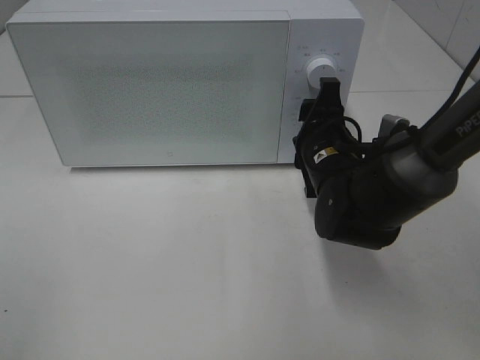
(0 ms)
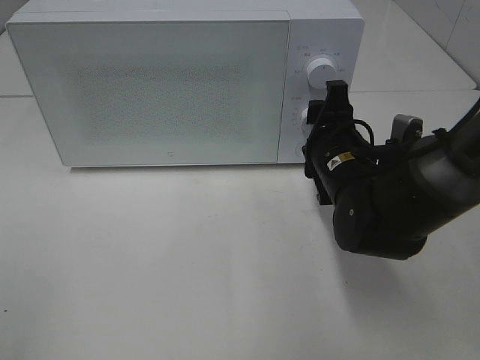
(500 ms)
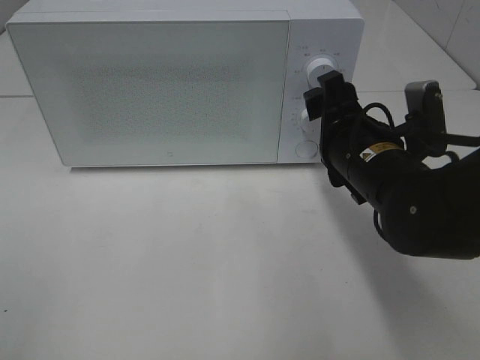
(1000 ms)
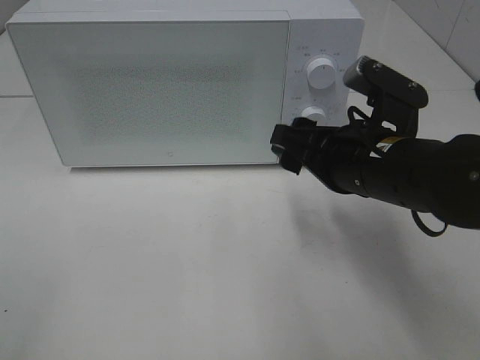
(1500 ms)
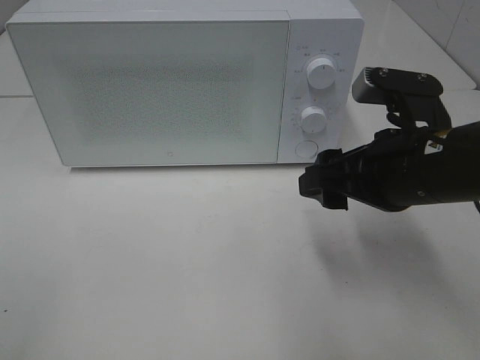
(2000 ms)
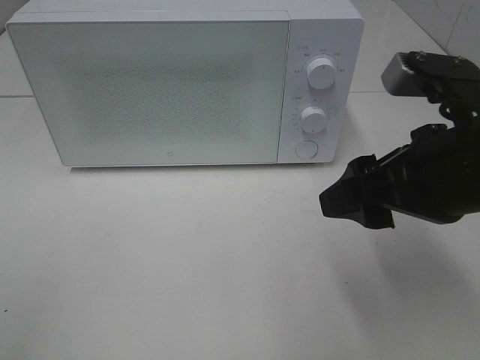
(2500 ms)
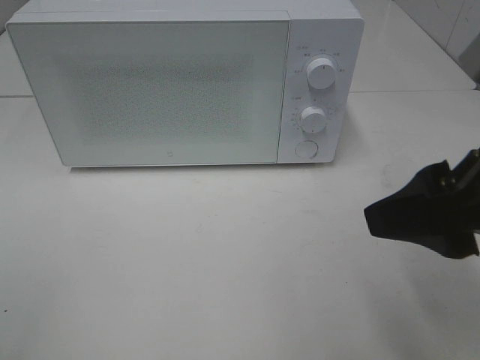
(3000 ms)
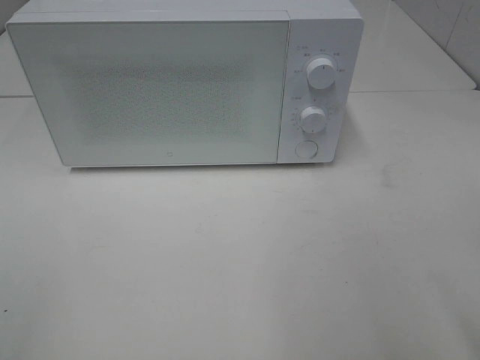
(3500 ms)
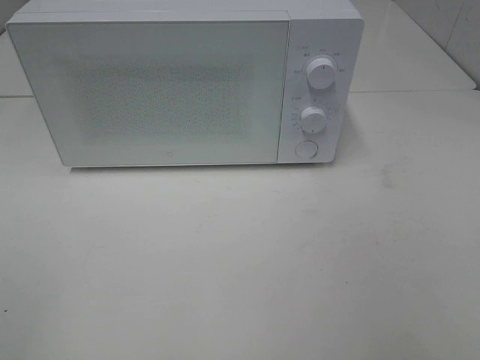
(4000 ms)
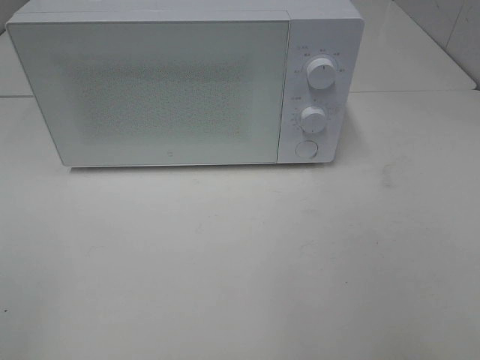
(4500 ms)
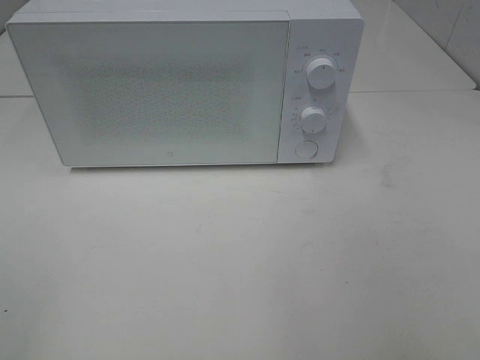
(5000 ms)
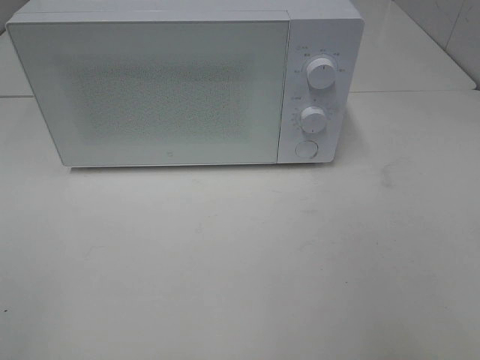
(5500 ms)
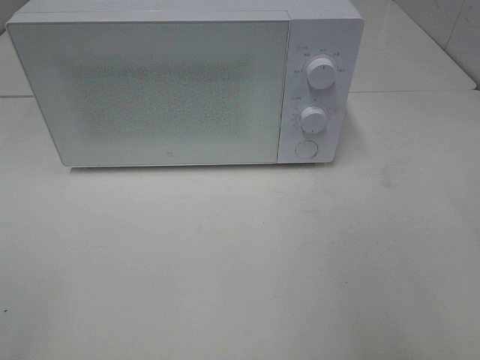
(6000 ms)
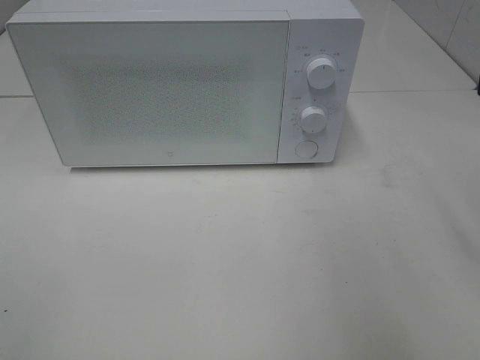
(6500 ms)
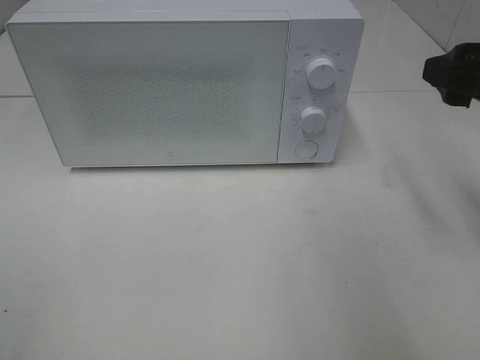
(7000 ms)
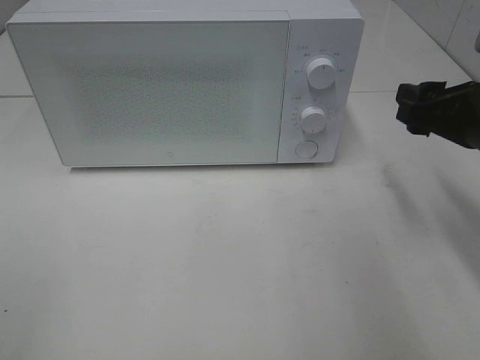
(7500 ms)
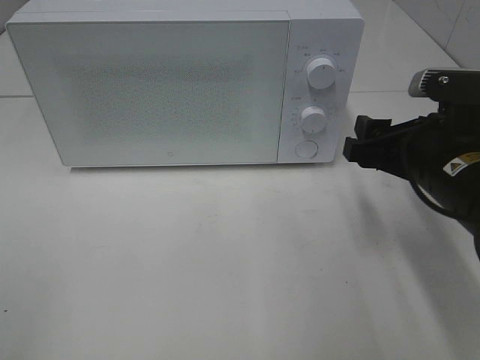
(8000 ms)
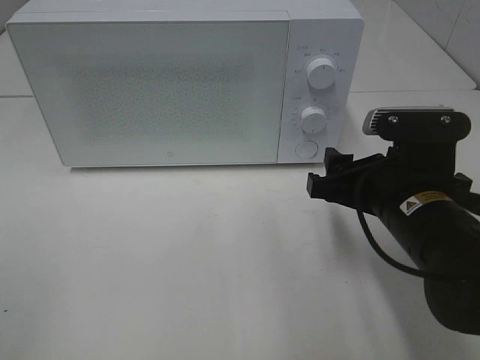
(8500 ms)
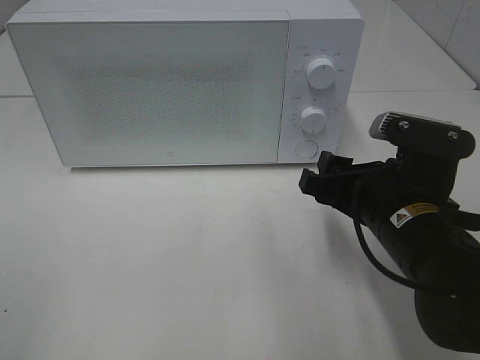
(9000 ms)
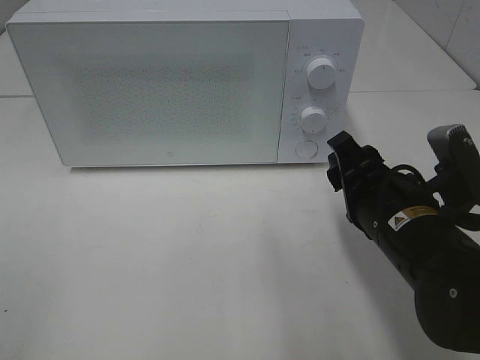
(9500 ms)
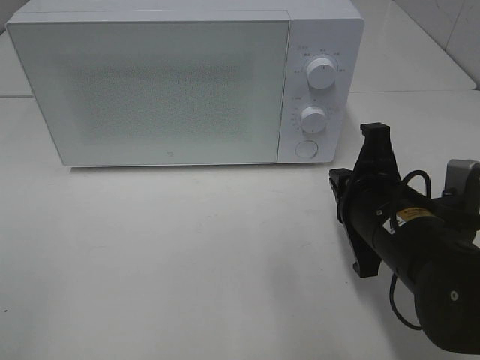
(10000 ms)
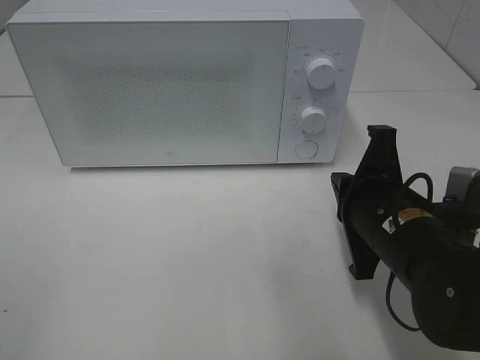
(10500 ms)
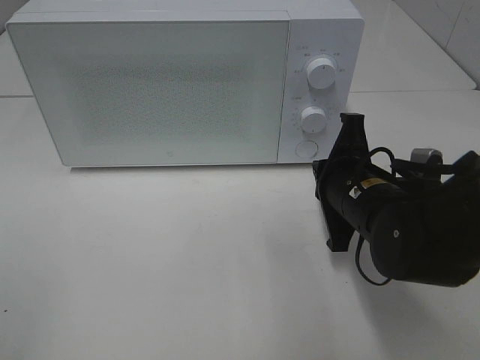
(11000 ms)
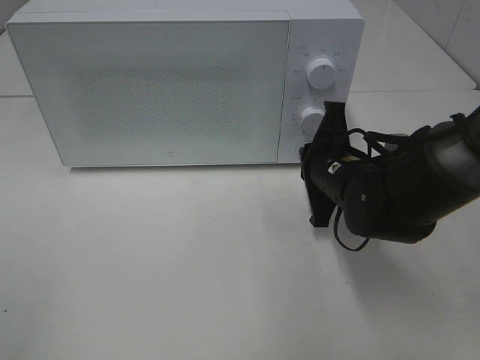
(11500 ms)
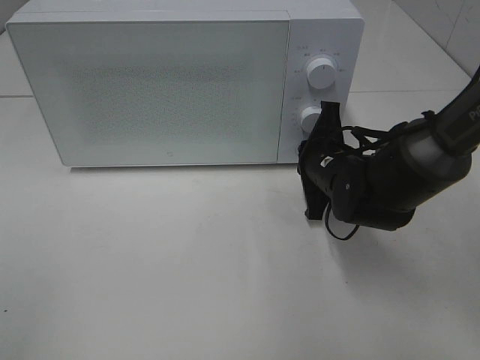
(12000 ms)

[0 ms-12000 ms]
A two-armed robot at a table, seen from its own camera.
Task of the whole recording: Heat the burger.
0 ms to 2000 ms: The right gripper heads backward and upward, covering approximately 15 cm.
2000 ms to 4000 ms: The right gripper shifts some 30 cm backward, to the right and upward.
6000 ms to 8000 ms: The right gripper travels downward, forward and to the left by approximately 20 cm.
8000 ms to 10000 ms: The right gripper moves to the left, approximately 5 cm, and closes.
10000 ms to 12000 ms: The right gripper goes approximately 15 cm forward.

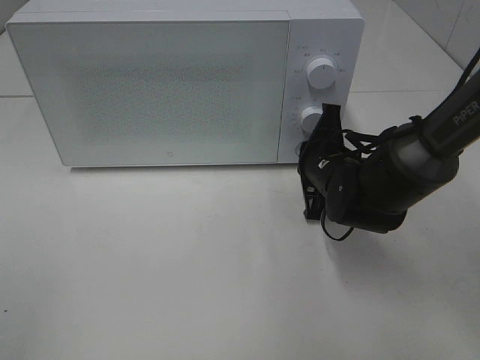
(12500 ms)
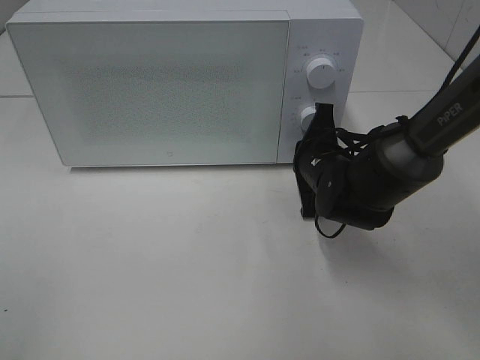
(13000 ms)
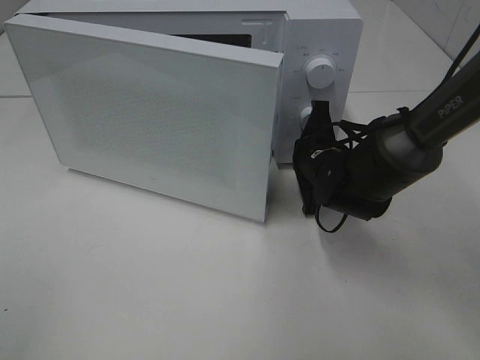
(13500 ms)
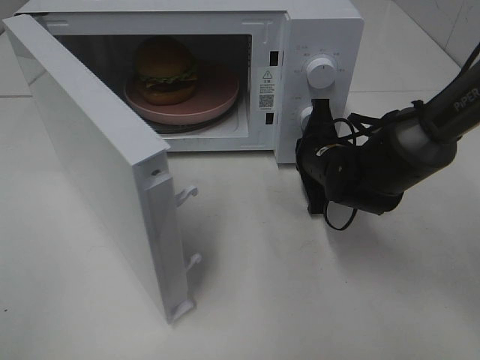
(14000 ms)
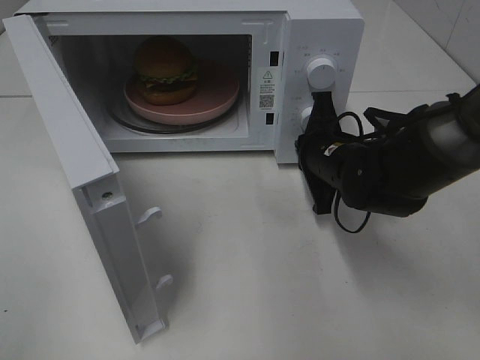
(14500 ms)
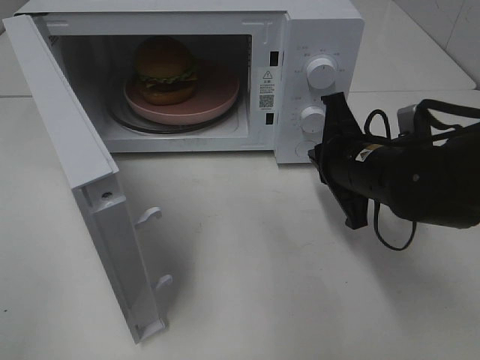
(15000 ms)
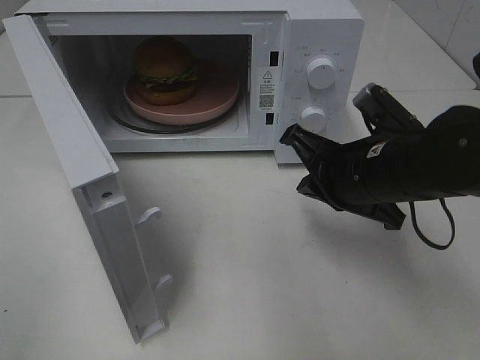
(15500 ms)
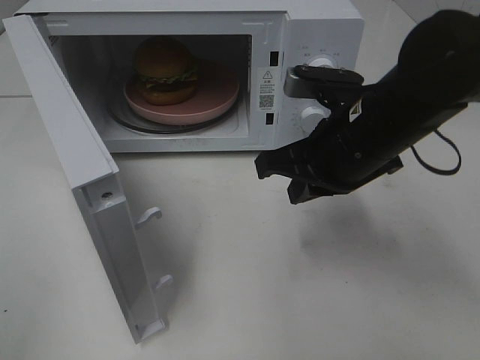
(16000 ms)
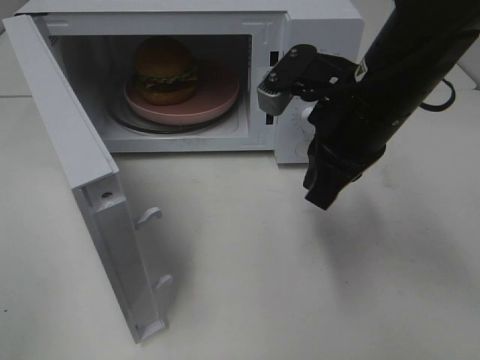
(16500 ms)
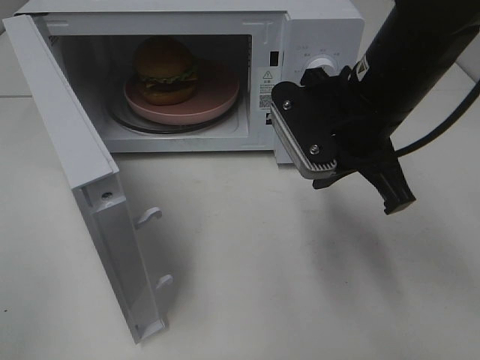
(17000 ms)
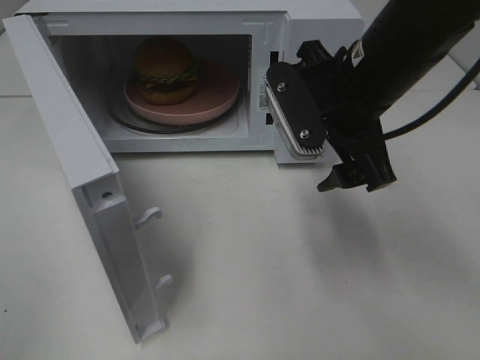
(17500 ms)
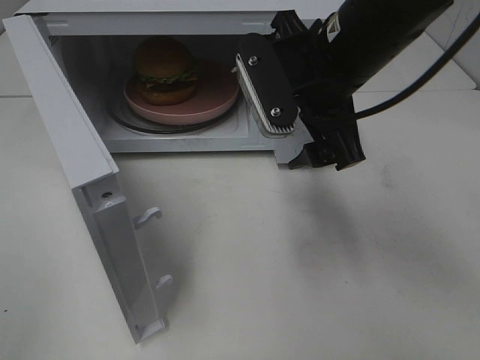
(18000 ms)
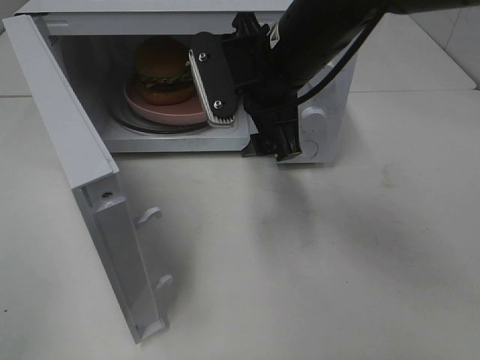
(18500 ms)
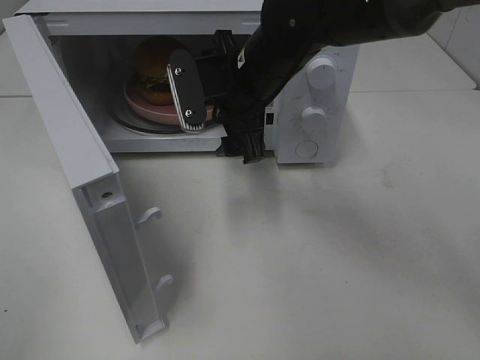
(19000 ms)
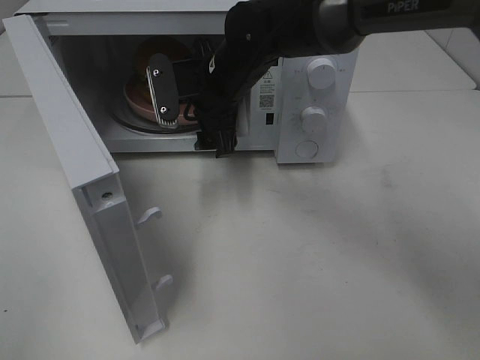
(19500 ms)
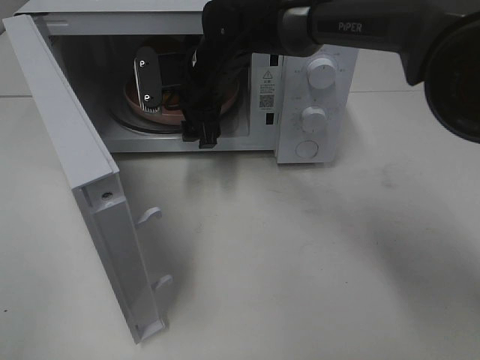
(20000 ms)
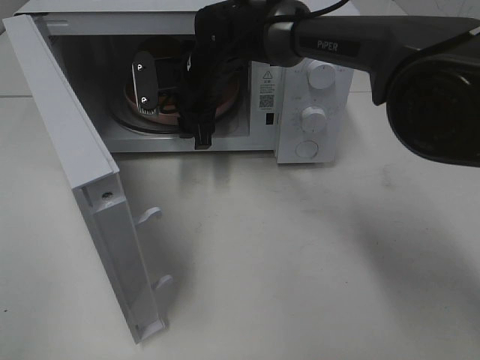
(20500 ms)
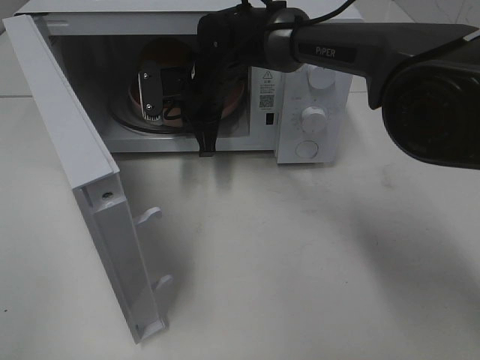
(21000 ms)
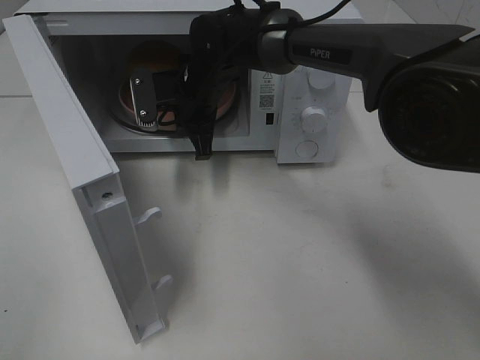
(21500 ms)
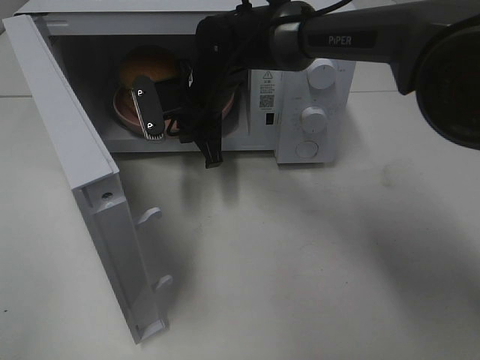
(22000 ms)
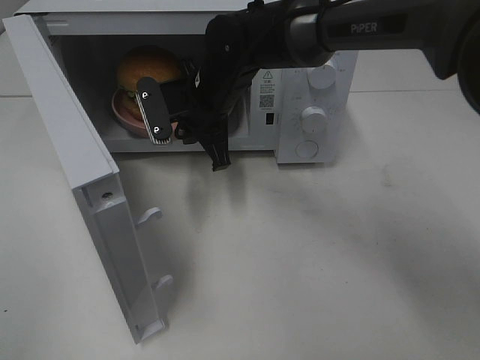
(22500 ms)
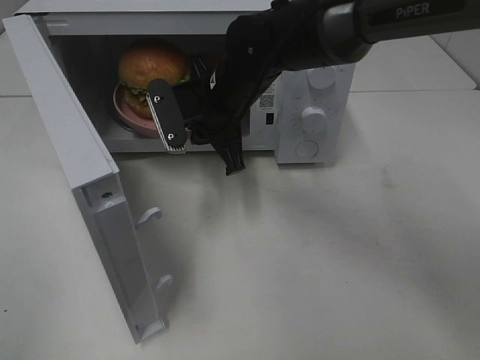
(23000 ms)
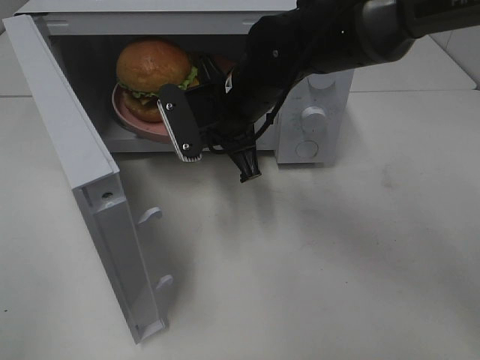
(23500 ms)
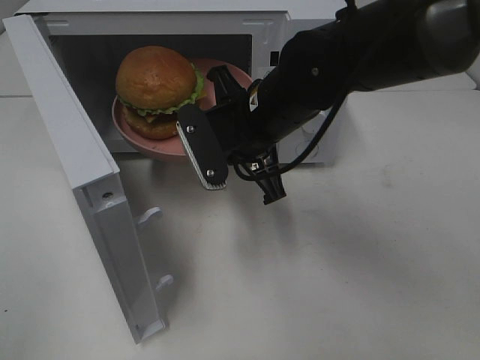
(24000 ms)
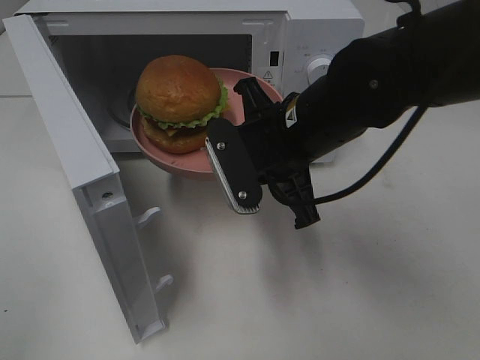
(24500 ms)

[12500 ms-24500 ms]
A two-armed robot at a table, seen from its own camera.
Task of the whole recording: Heat the burger.
Step, 12500 ms to 14500 ms: Right hand: press the switch.
Step, 15000 ms to 20500 ms: Right hand: grab the plate with the hamburger.
14500 ms to 16500 ms: The right gripper moves upward and backward, roughly 15 cm.
16500 ms to 18500 ms: The right gripper is displaced to the left and forward by roughly 10 cm, and opens.
18500 ms to 20500 ms: The right gripper travels forward, to the left and downward by approximately 15 cm.
20500 ms to 22500 ms: The right gripper closes its fingers.
22500 ms to 24500 ms: The right gripper moves backward and to the right, approximately 15 cm.

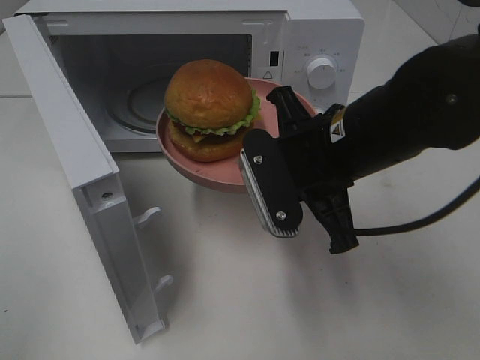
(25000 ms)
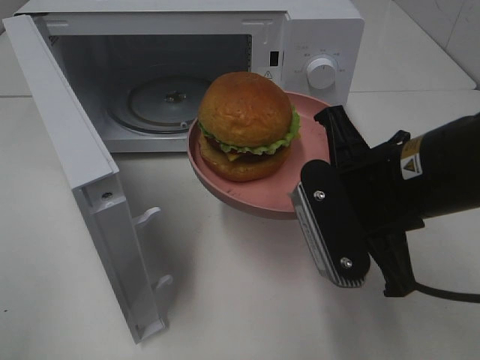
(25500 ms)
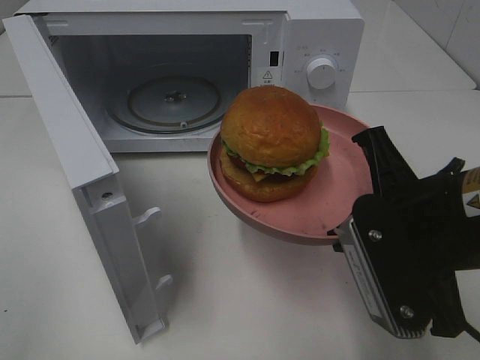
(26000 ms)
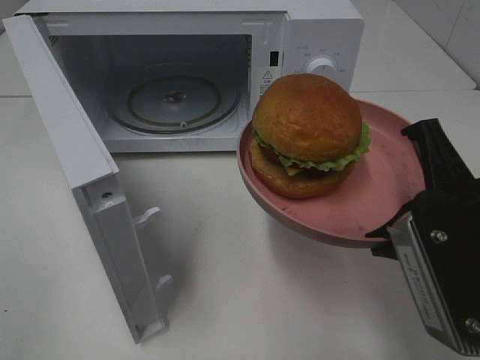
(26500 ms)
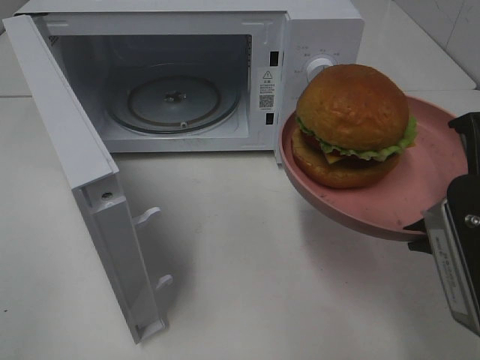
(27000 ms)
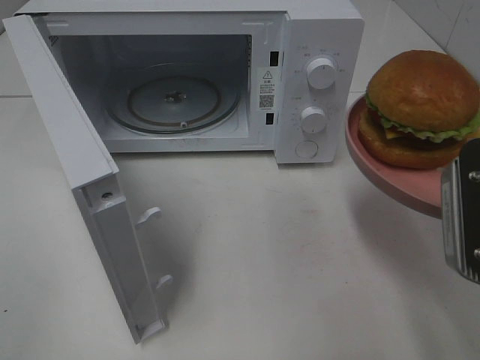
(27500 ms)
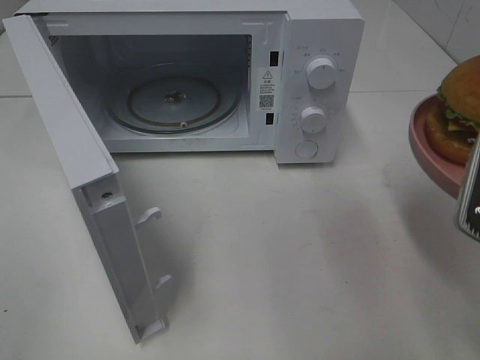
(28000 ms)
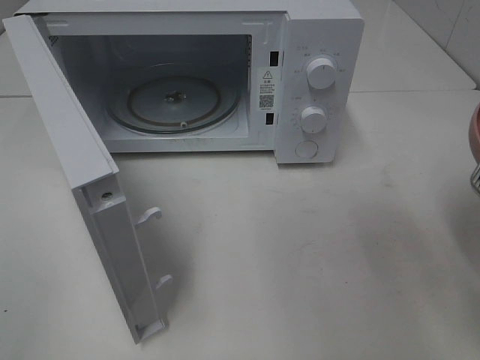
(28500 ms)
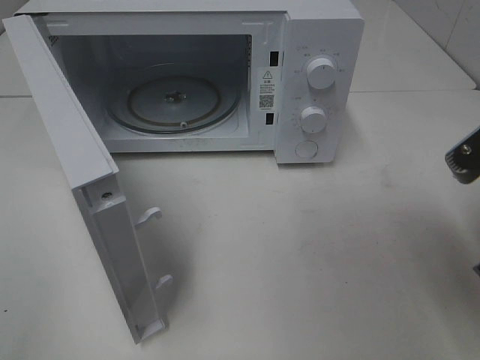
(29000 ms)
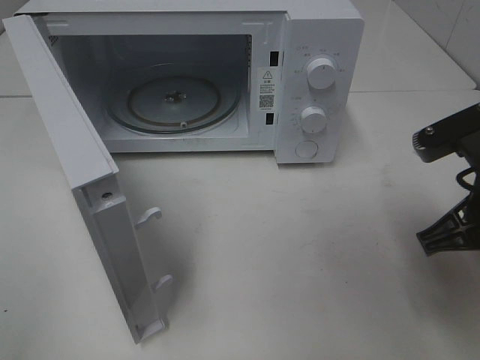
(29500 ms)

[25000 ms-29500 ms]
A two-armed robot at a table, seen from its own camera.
Task of the whole recording: Heat the burger.
25000 ms to 27000 ms: The right gripper shifts approximately 15 cm backward and to the right.
27000 ms to 29500 ms: The right gripper travels forward by about 5 cm.
